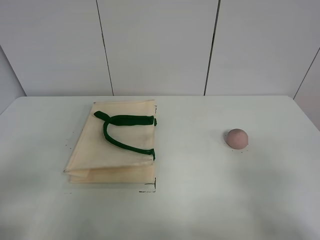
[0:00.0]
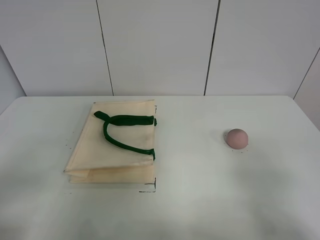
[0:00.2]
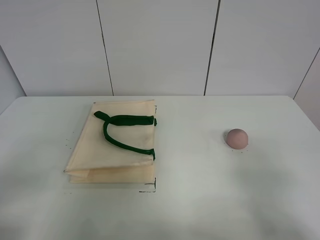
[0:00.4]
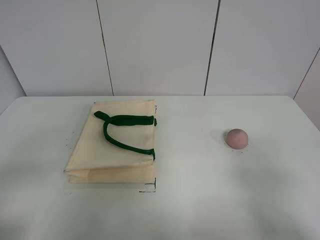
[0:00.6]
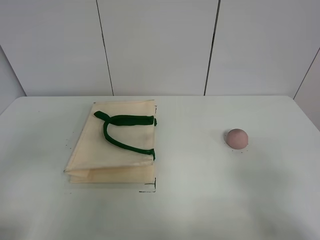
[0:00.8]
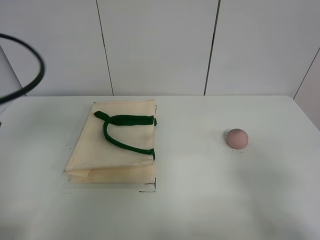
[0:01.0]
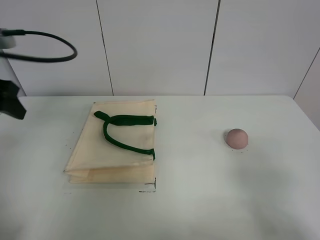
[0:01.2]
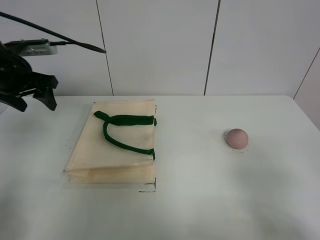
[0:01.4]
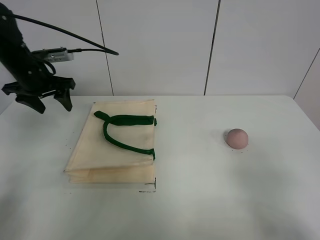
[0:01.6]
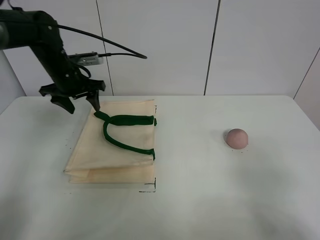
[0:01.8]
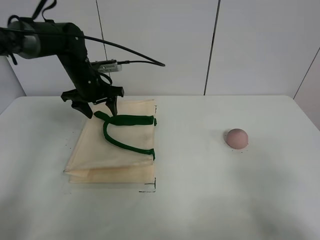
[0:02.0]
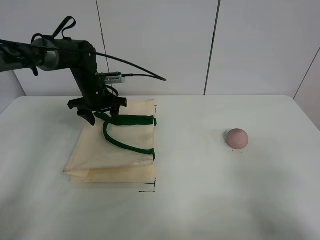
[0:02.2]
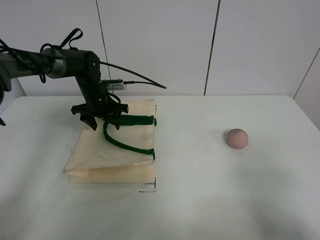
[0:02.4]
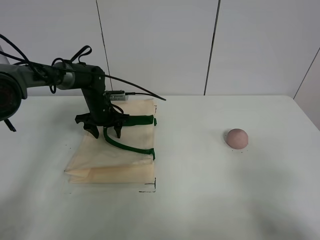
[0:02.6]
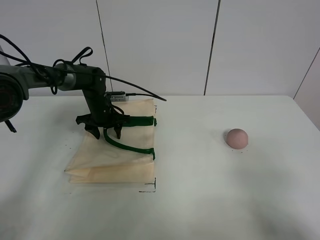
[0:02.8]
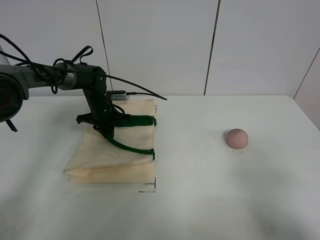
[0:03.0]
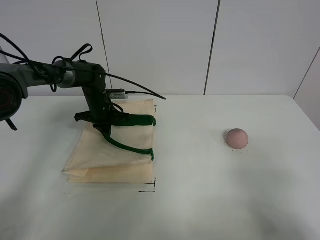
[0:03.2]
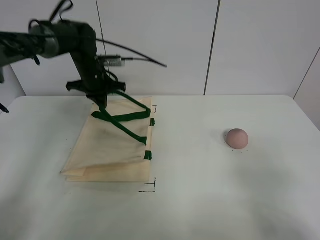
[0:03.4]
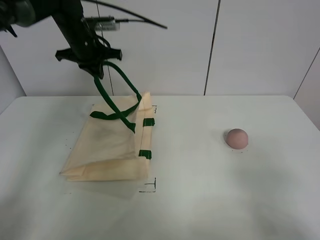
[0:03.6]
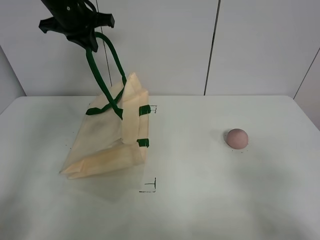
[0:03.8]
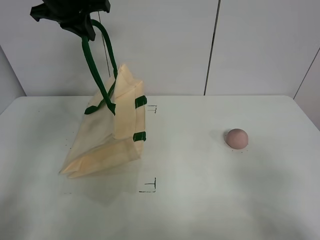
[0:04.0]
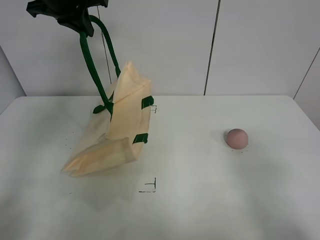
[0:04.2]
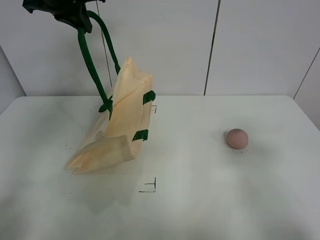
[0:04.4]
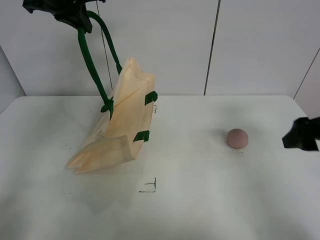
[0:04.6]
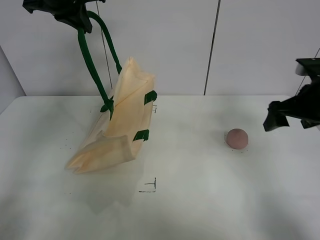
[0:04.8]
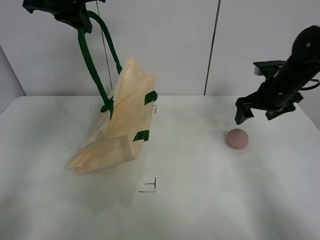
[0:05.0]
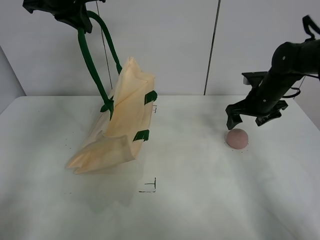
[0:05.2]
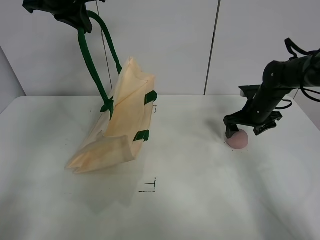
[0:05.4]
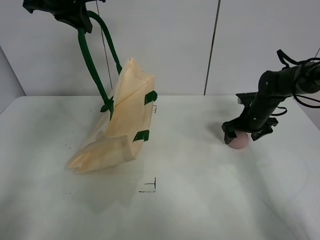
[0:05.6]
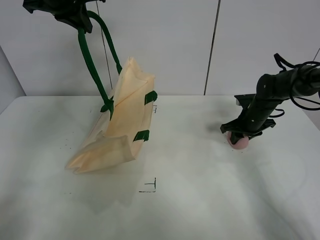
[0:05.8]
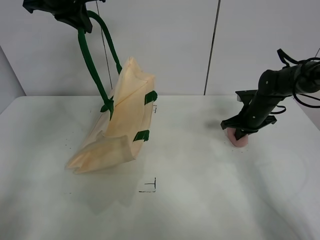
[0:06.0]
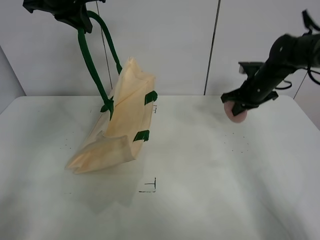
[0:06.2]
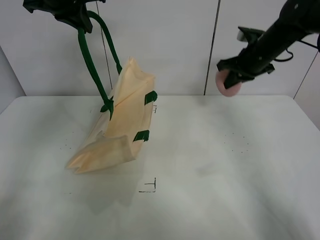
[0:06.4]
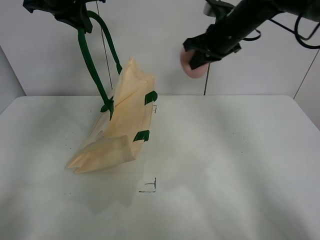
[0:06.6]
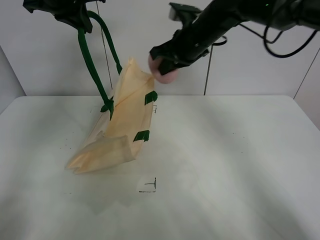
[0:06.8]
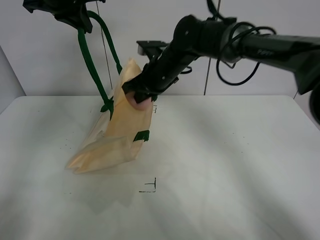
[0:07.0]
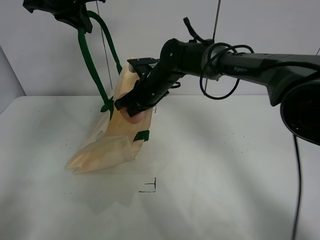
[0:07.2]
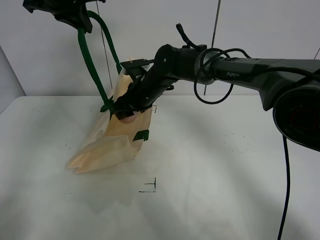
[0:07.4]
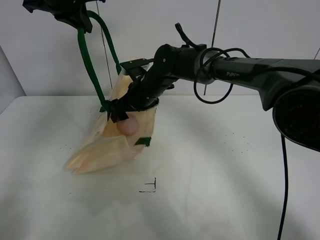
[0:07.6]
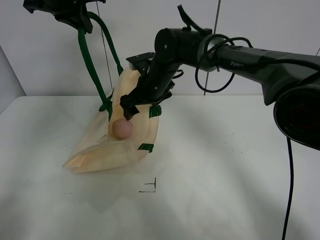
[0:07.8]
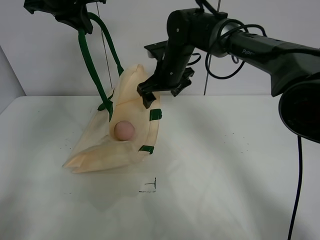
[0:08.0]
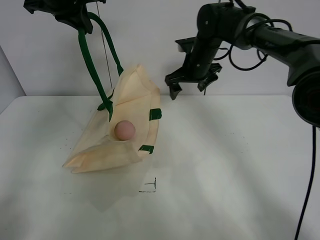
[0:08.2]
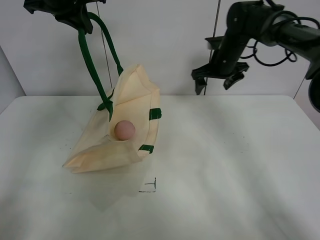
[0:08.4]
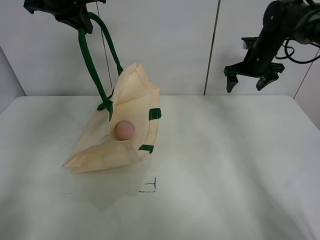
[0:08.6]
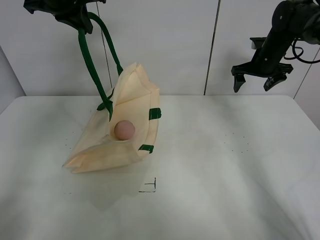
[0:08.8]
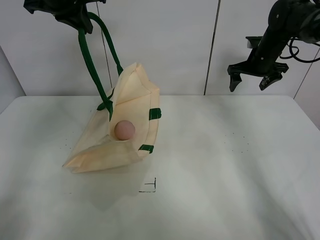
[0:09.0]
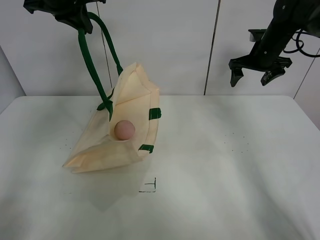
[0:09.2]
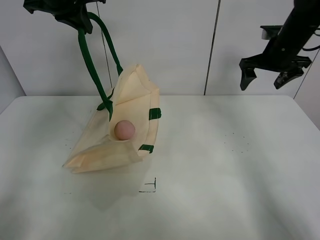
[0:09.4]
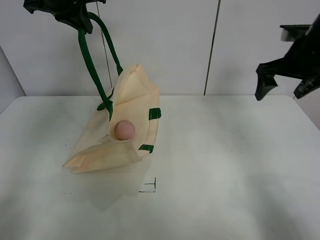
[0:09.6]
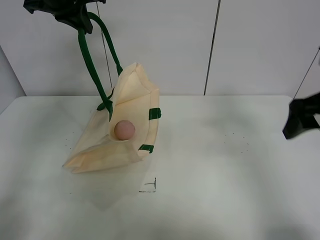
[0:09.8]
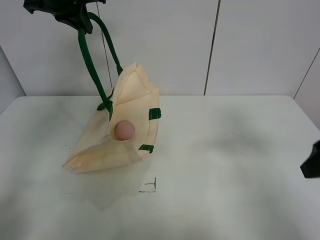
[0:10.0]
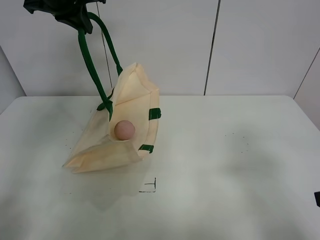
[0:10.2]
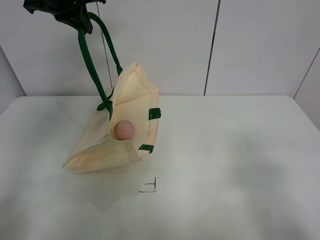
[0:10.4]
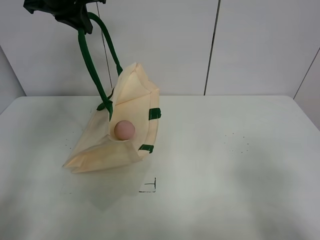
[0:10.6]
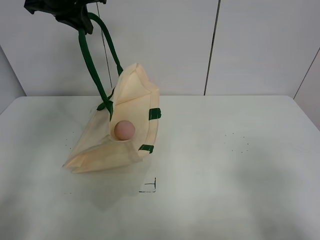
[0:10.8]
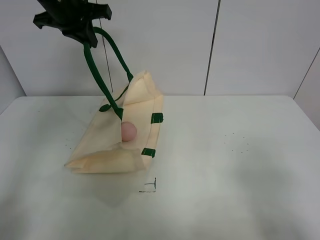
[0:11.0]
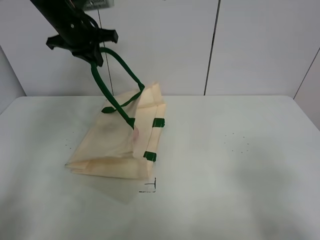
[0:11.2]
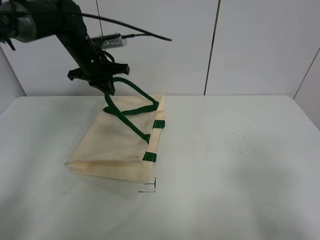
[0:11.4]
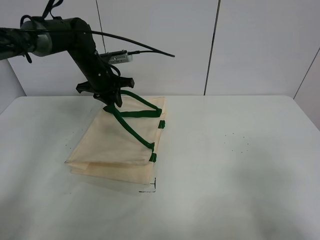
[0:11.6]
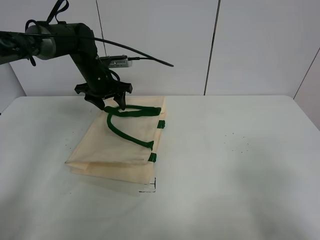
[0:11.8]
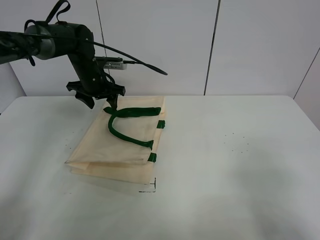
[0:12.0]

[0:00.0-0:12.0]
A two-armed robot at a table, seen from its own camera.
Task of the whole recording: open the white linen bag and put the peach in the bag.
Step, 0:00.0 to 0:03.6: Lift the handbag with left gripper.
Step, 0:03.8 to 0:05.8: Grasp the peach with right gripper.
Step, 0:06.0 to 0:07.6: Place the peach in the handbag with right gripper.
Step, 0:07.8 to 0:11.6: Put down the handbag with left gripper.
0:00.0 to 0:01.6: The left gripper moves forward, roughly 40 cm.
0:01.6 to 0:03.0: The left gripper shifts some 20 cm downward, to the right and forward, and closes its fingers.
0:03.0 to 0:04.4: The right gripper goes about 10 cm forward. Meanwhile the left gripper travels upward by roughly 30 cm.
0:04.4 to 0:06.0: The right gripper goes about 35 cm forward and downward, and closes up.
0:06.0 to 0:07.6: The right gripper shifts about 30 cm to the left, and opens its fingers.
0:07.6 to 0:09.0: The right gripper moves to the right, approximately 30 cm.
0:09.0 to 0:10.4: The right gripper goes about 50 cm backward.
0:10.4 to 0:12.0: The left gripper travels downward by about 20 cm, and opens up.

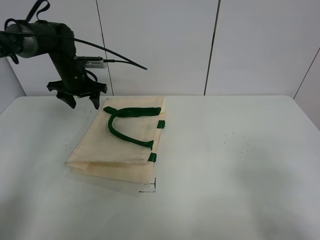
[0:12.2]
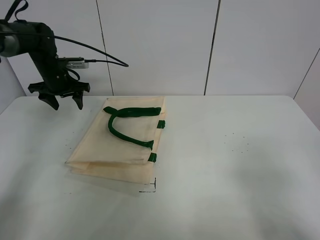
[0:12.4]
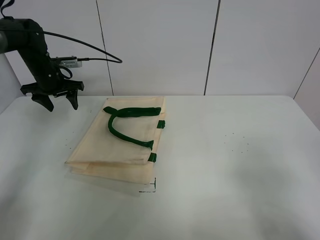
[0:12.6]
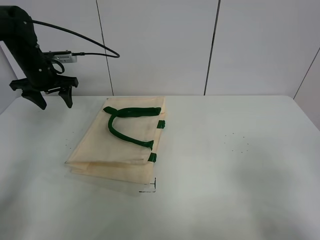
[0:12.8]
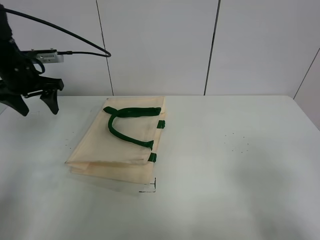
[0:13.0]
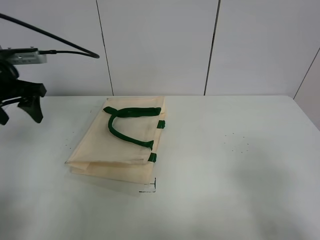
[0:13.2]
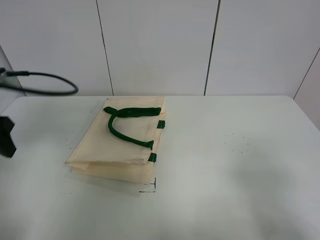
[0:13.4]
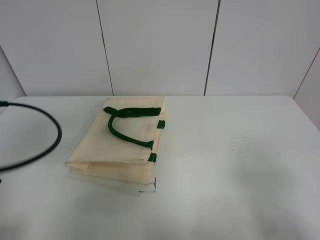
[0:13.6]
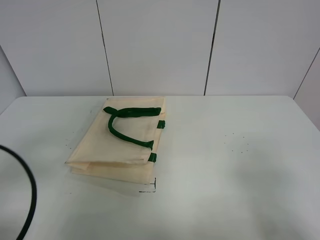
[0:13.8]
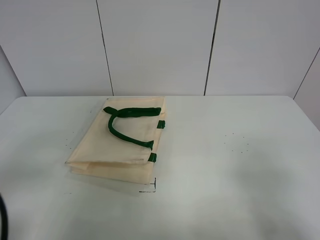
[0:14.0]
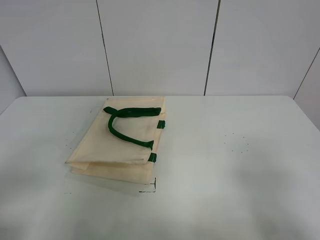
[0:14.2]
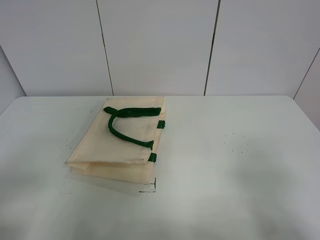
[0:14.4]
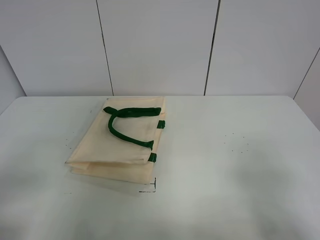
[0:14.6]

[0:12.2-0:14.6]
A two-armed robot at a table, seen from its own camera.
Task of the whole recording: open the white linen bag and put the peach in the bag.
0:12.2 to 0:13.4: The left gripper is displaced backward by some 25 cm.
0:13.4 to 0:14.6: The left gripper travels backward by roughly 20 cm.
